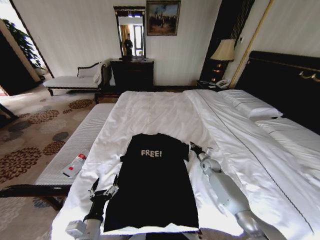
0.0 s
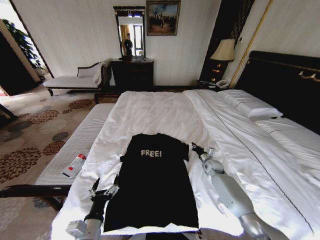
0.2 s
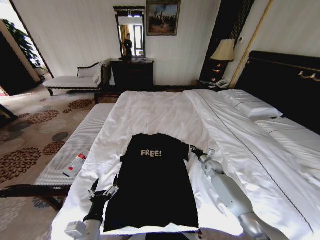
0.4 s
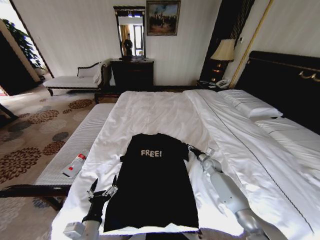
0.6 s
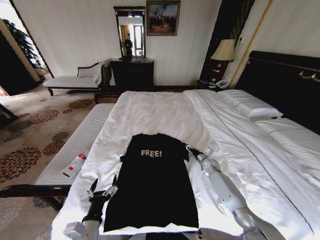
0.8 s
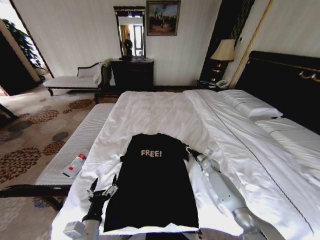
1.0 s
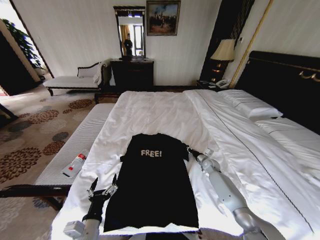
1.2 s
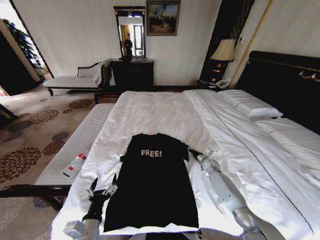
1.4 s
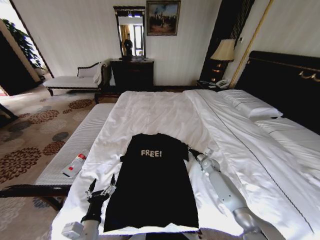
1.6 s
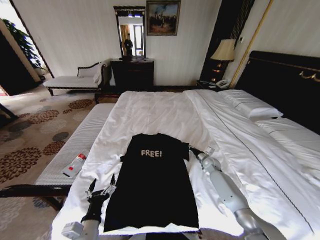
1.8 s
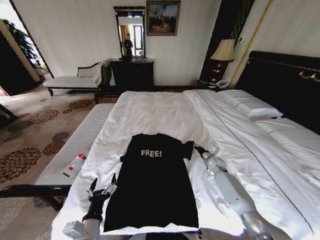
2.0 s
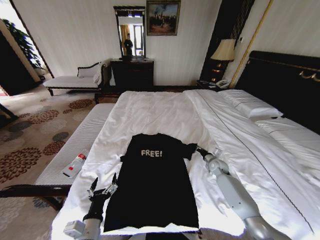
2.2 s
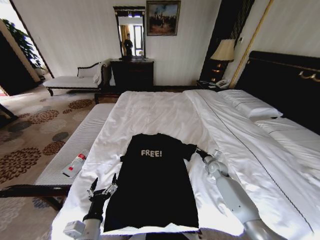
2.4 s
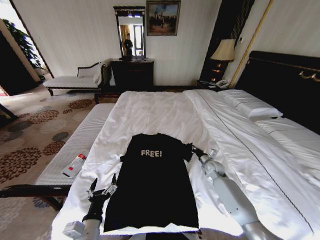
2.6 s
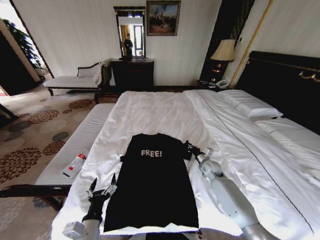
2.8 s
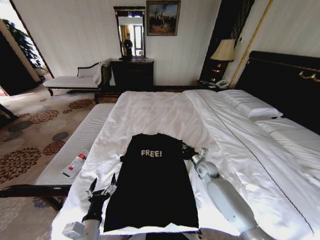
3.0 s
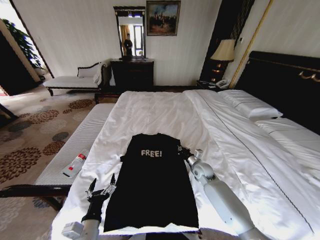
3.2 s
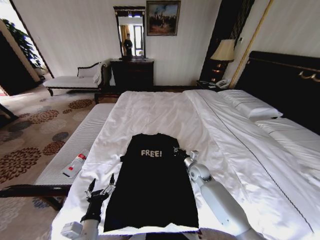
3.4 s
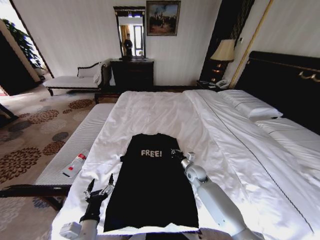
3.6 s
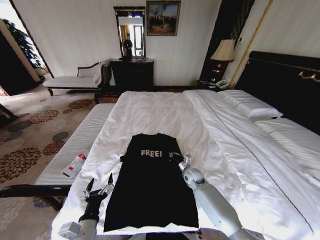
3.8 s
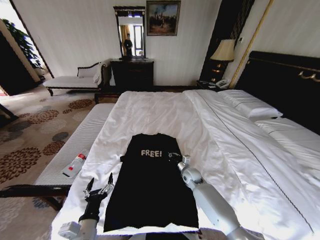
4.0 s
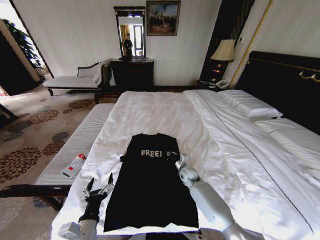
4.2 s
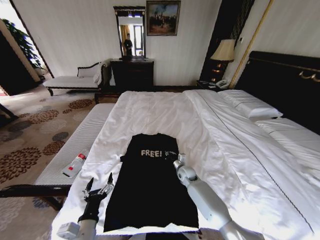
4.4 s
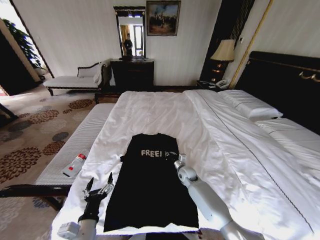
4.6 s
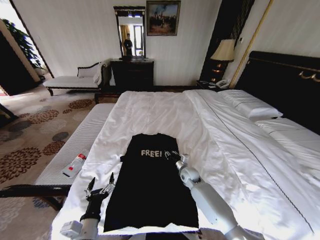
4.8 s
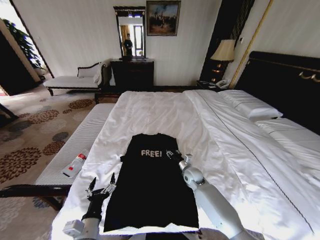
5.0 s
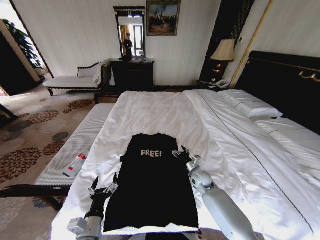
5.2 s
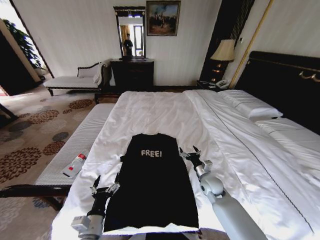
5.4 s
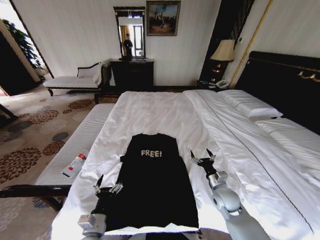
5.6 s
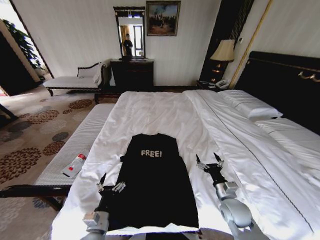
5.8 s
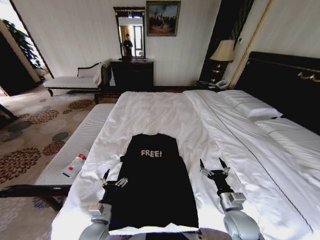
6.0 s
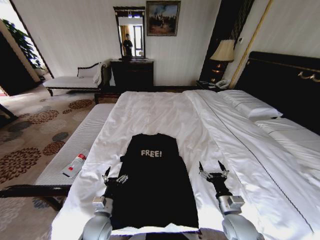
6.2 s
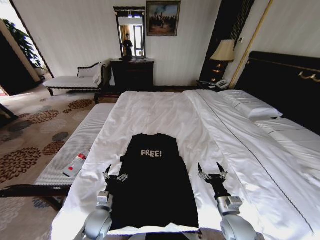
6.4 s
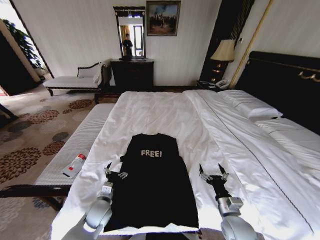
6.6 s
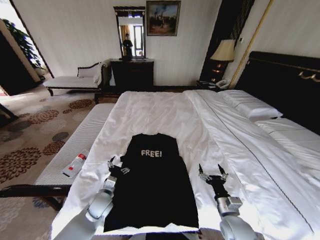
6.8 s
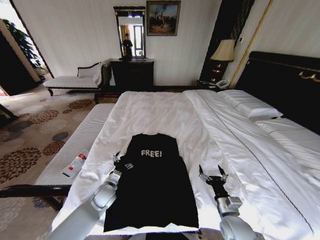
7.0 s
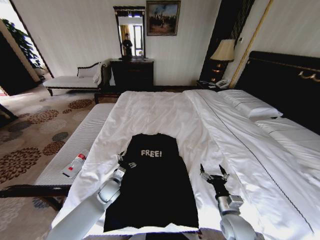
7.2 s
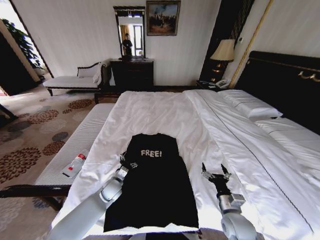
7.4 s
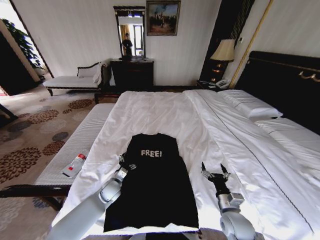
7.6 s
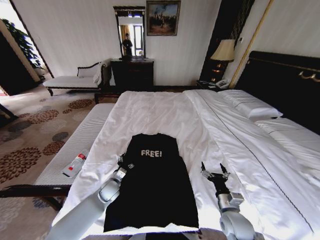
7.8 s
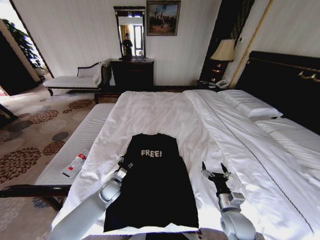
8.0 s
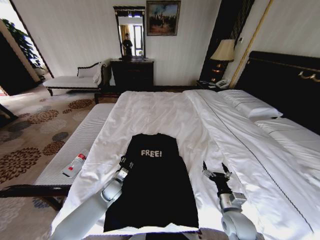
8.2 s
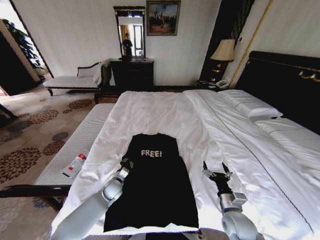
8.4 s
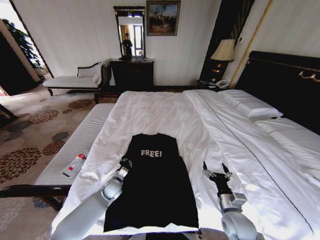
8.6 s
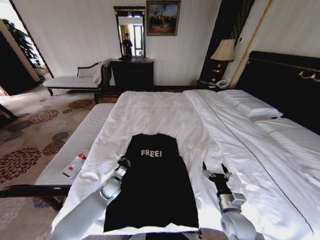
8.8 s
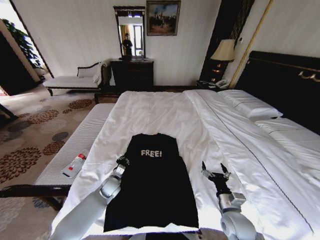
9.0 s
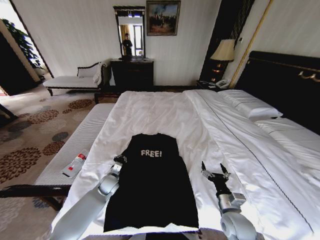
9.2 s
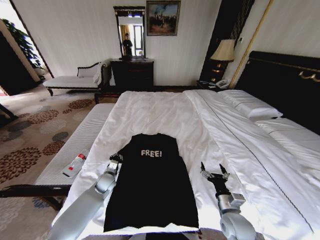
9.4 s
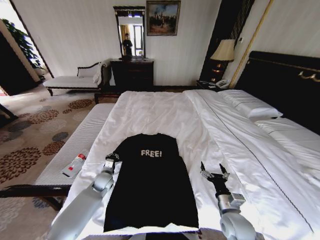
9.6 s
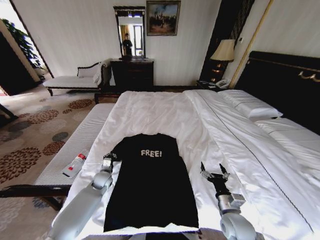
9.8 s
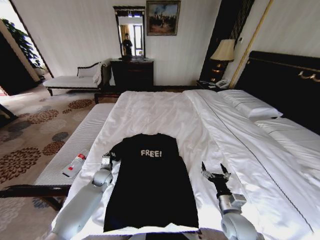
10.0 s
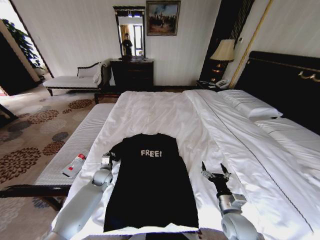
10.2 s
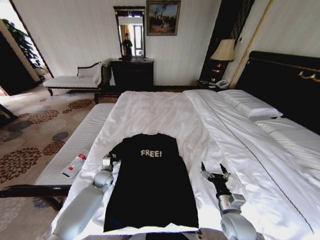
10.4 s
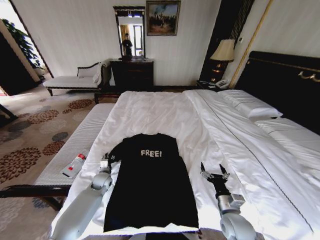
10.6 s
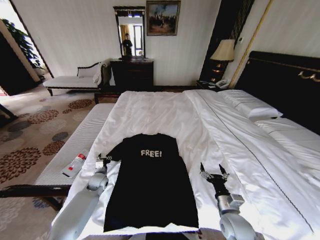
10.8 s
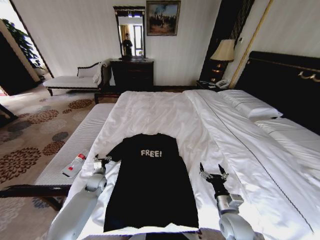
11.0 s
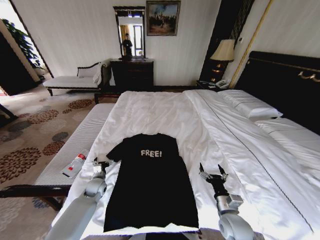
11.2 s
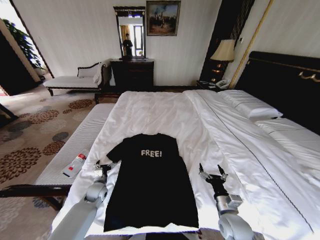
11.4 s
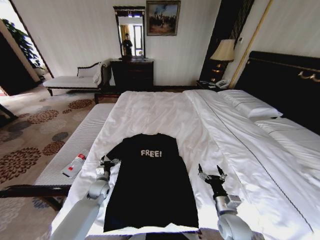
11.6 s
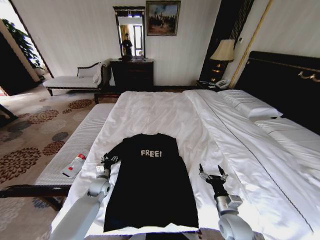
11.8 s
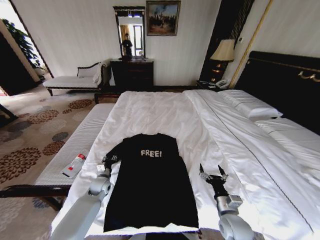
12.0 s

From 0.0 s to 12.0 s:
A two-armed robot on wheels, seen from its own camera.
Task of the whole recording: Fold the clothes on the bed.
From 0.0 s to 1.6 s: The right gripper opens and closes again.
From 1.6 s to 3.0 s: The right gripper goes approximately 10 cm to the left, backward and upward.
From 3.0 s to 4.4 s: The right gripper heads to the left and downward, covering roughly 10 cm.
From 4.4 s to 6.0 s: The right gripper moves backward and to the right, some 25 cm, and opens its fingers. The left gripper travels forward and downward by approximately 10 cm.
From 6.0 s to 7.6 s: The left gripper is displaced forward by about 20 cm.
From 7.6 s to 9.0 s: The left gripper closes up.
From 9.0 s to 10.4 s: The left gripper changes place by about 5 cm.
From 10.4 s to 12.0 s: The left gripper opens.

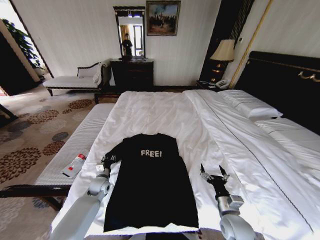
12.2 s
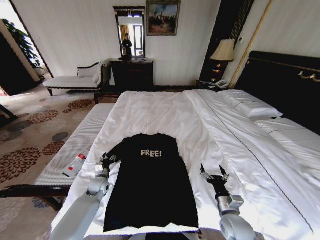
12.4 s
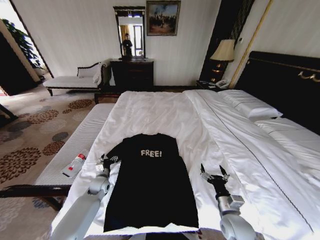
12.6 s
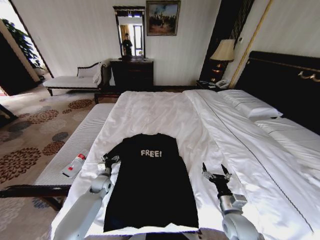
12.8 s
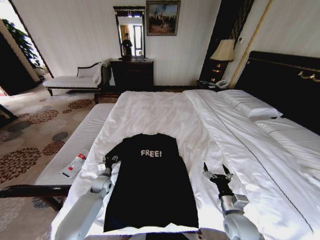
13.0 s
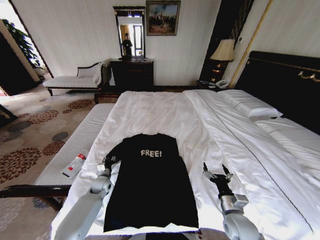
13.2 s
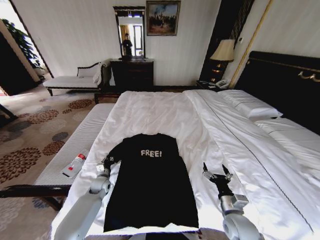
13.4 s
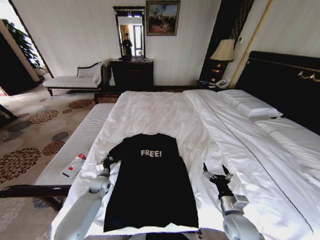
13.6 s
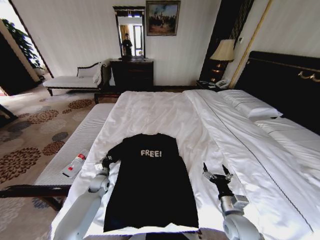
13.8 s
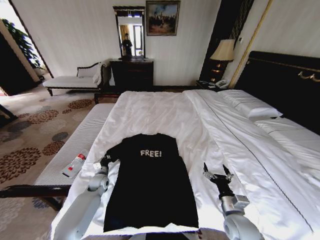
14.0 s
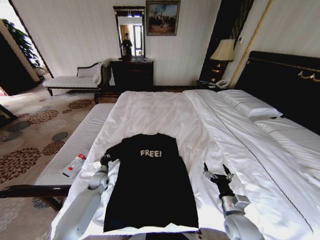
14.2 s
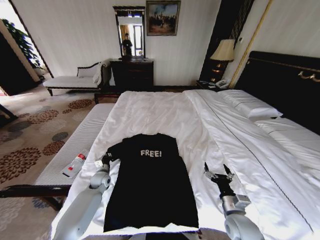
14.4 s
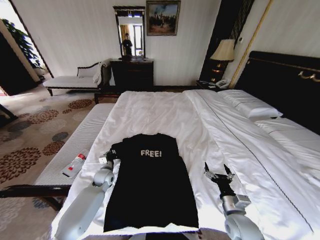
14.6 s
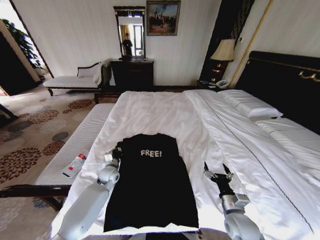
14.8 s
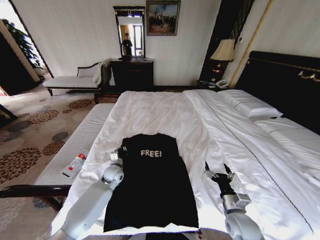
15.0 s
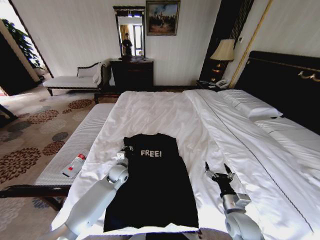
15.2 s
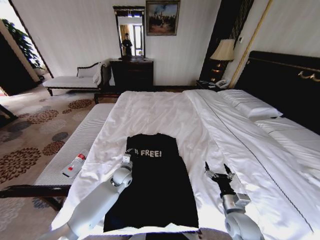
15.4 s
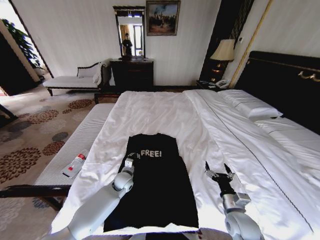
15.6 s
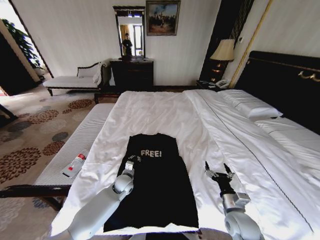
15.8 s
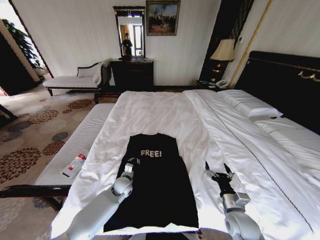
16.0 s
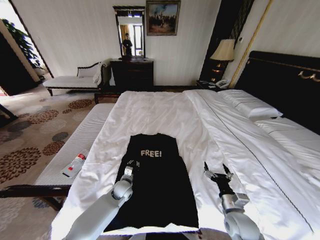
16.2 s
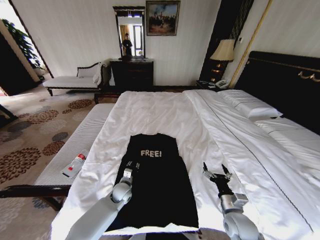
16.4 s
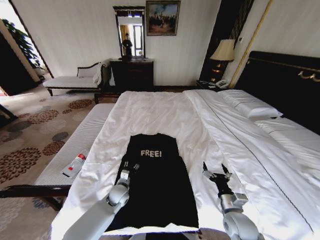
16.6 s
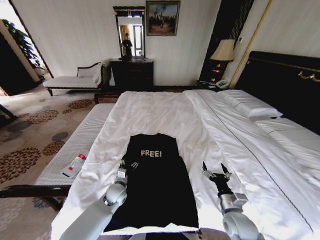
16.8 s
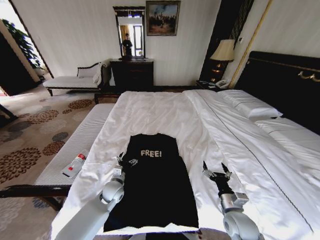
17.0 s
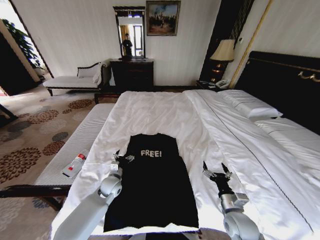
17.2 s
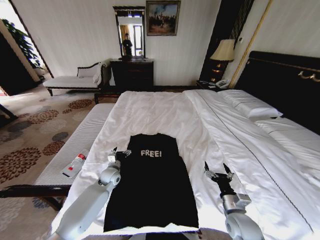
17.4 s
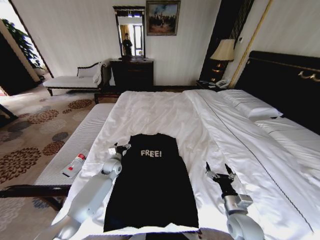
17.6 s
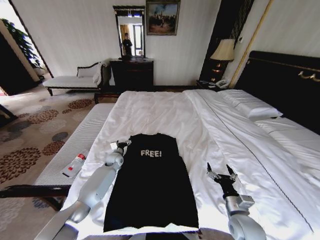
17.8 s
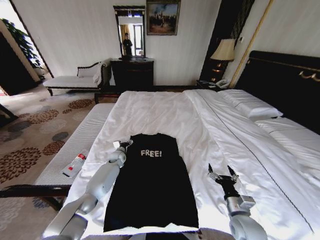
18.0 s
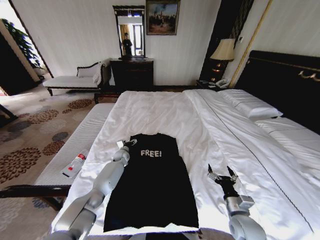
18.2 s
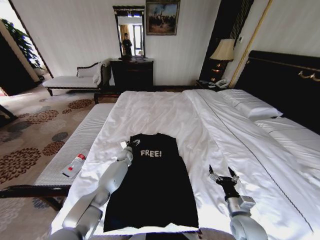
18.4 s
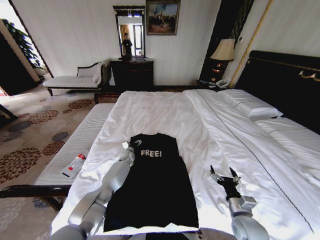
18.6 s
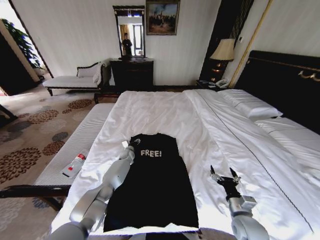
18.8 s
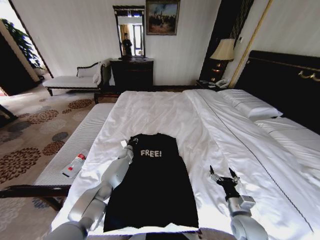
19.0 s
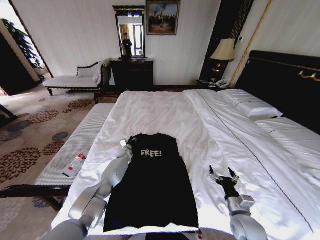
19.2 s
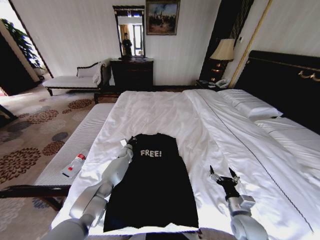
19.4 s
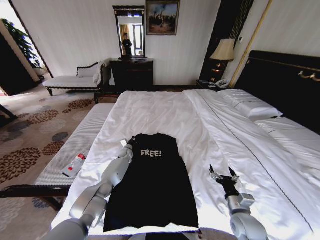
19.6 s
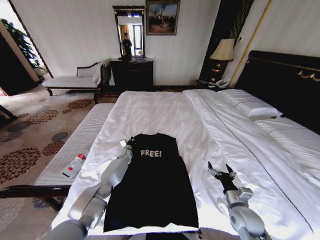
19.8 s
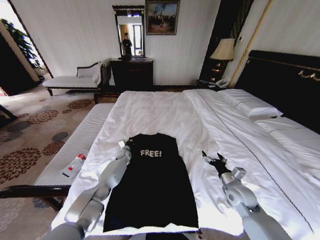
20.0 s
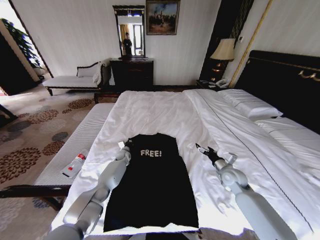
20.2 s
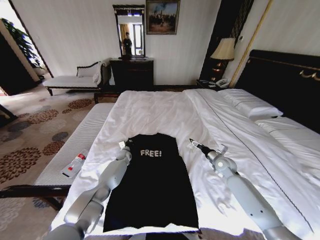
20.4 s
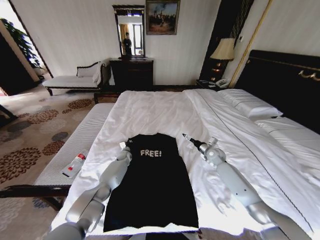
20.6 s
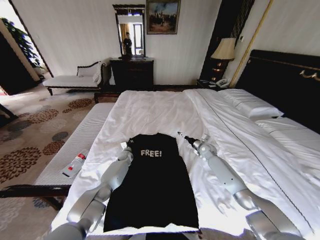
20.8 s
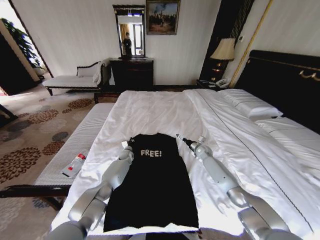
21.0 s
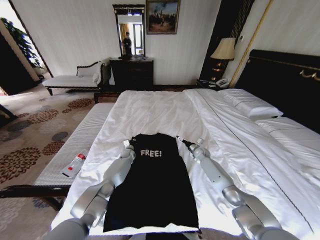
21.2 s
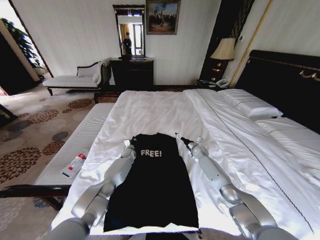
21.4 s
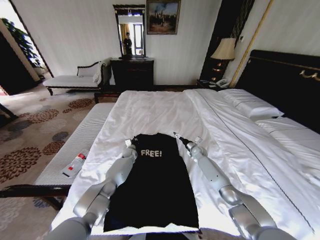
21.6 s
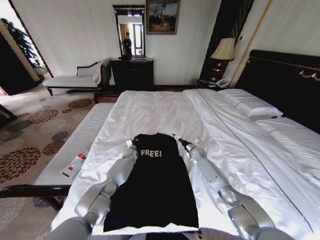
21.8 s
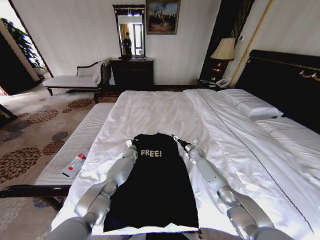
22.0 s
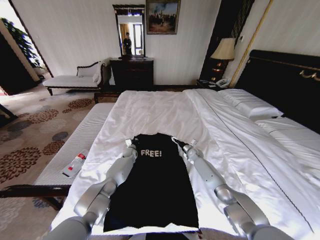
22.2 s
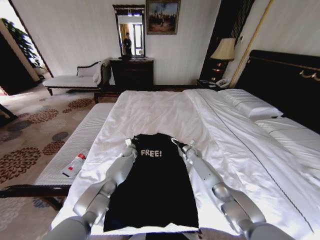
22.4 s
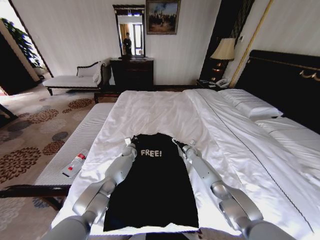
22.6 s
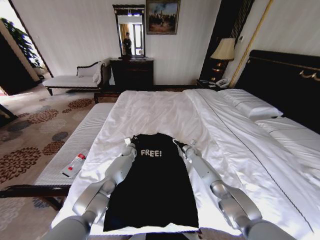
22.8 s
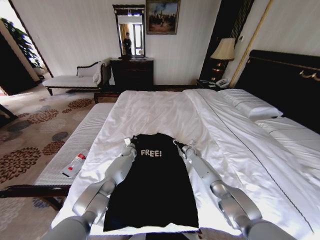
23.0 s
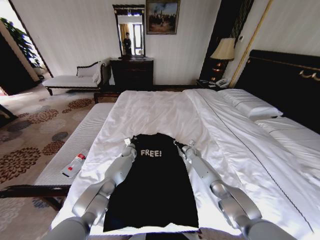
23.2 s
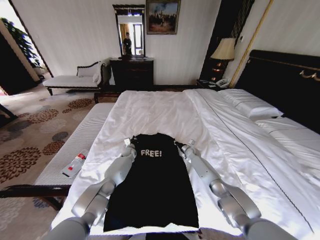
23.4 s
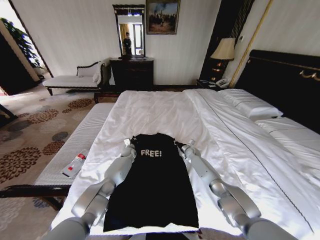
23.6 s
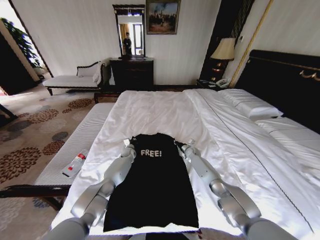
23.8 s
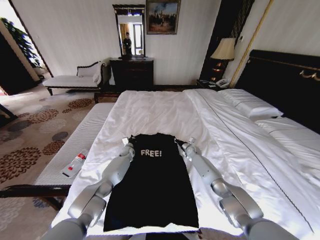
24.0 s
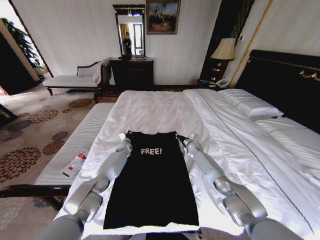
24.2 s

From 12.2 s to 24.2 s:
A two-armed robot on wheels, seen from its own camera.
Task of the whole recording: Fold the clothes on the bed.
From 12.2 s to 13.8 s: The left gripper closes.
From 13.8 s to 15.2 s: The left gripper moves to the right and upward, about 10 cm.
From 15.2 s to 16.6 s: The left gripper travels backward and downward by approximately 10 cm, and opens up.
From 16.6 s to 18.2 s: The left gripper moves forward, some 20 cm, and opens its fingers.
From 18.2 s to 19.8 s: The left gripper closes.
From 19.8 s to 21.2 s: The right gripper travels forward by some 35 cm.
From 21.2 s to 22.6 s: The right gripper moves some 5 cm.
From 22.6 s to 24.2 s: The right gripper closes up, while the left gripper ends up some 5 cm from where it was.
